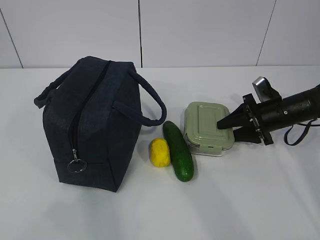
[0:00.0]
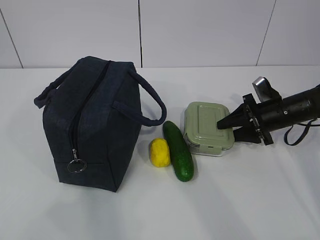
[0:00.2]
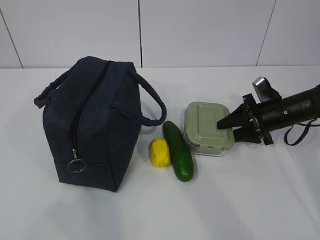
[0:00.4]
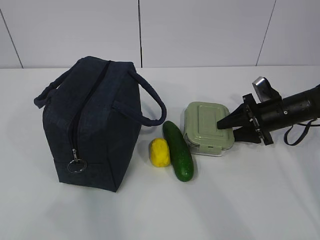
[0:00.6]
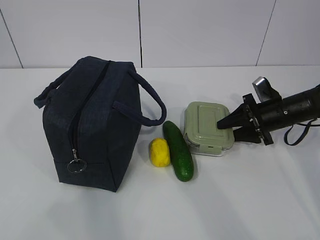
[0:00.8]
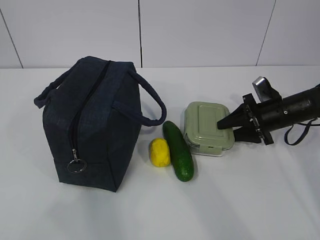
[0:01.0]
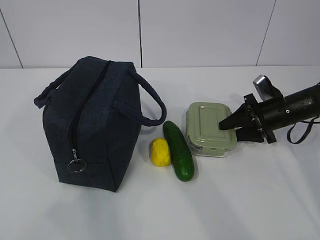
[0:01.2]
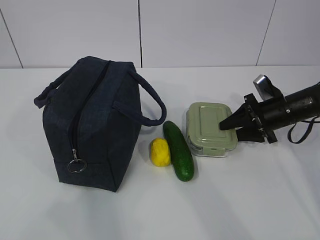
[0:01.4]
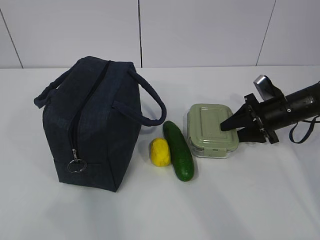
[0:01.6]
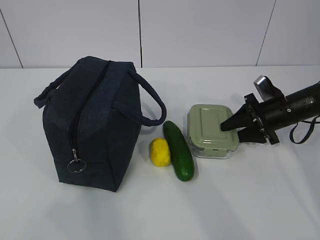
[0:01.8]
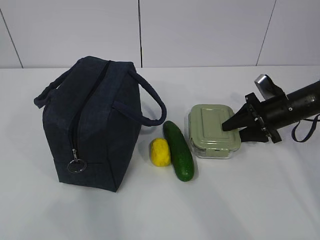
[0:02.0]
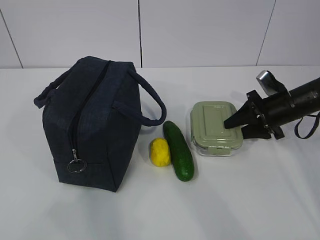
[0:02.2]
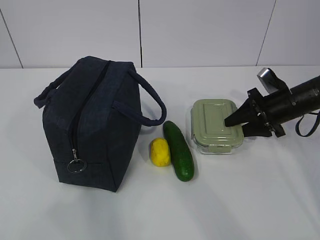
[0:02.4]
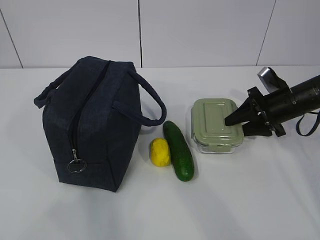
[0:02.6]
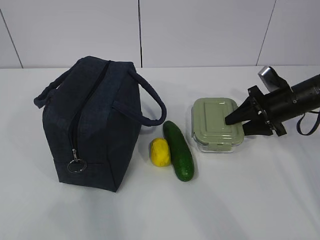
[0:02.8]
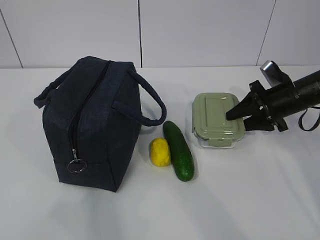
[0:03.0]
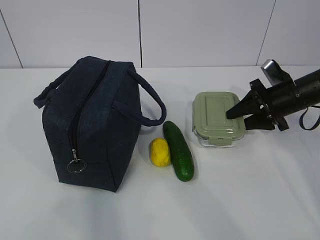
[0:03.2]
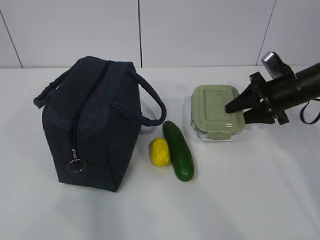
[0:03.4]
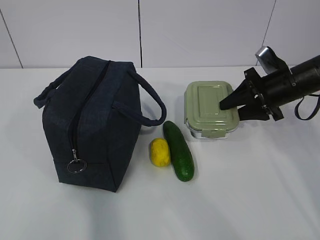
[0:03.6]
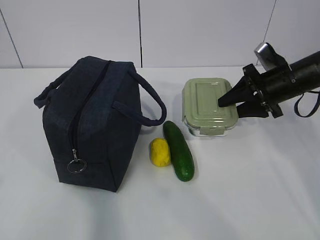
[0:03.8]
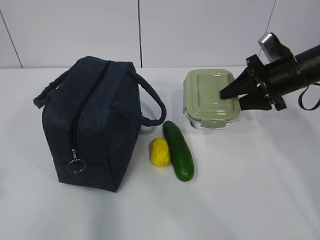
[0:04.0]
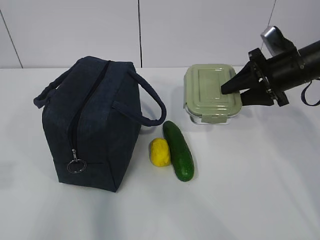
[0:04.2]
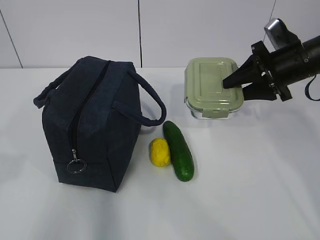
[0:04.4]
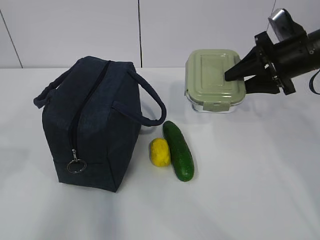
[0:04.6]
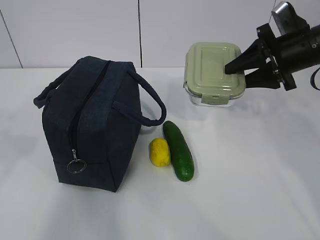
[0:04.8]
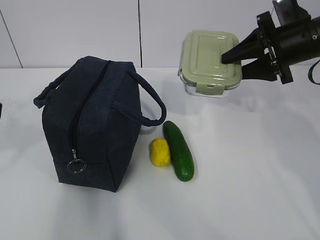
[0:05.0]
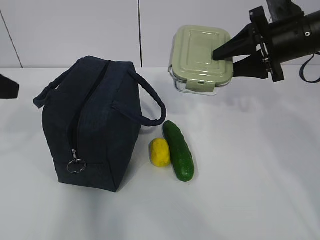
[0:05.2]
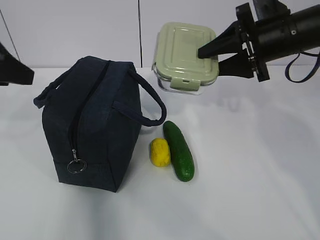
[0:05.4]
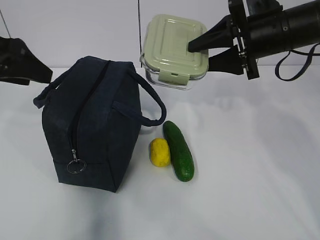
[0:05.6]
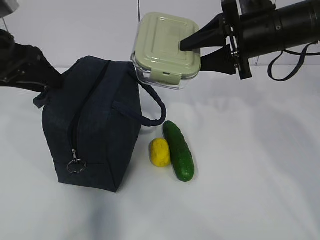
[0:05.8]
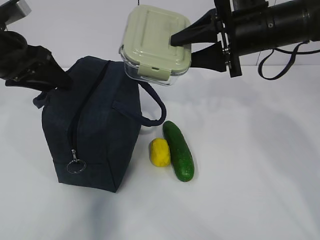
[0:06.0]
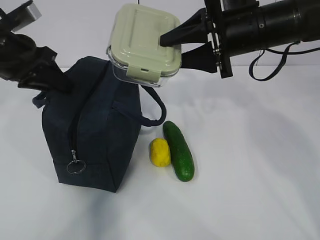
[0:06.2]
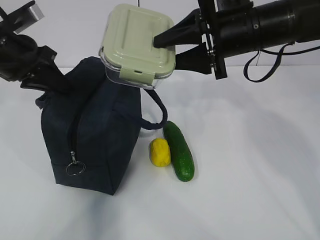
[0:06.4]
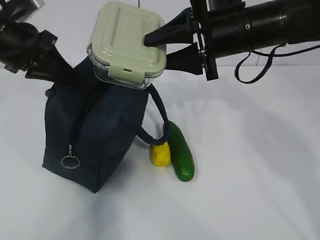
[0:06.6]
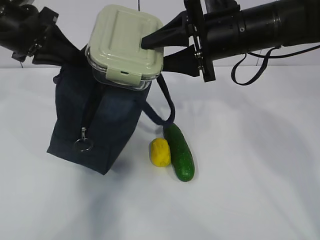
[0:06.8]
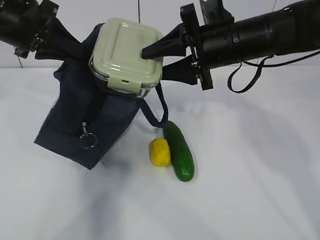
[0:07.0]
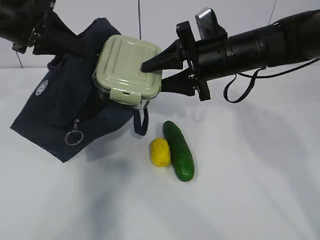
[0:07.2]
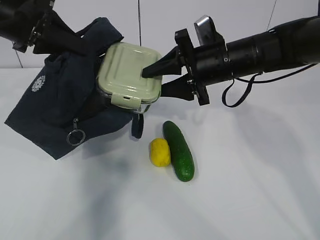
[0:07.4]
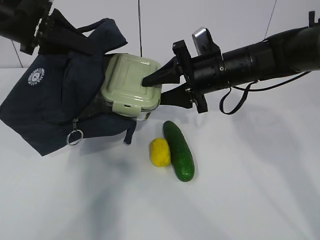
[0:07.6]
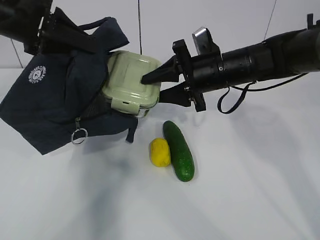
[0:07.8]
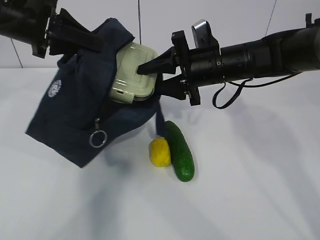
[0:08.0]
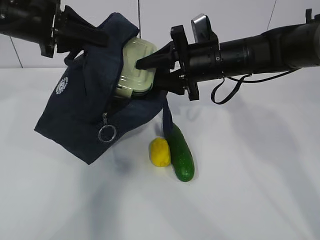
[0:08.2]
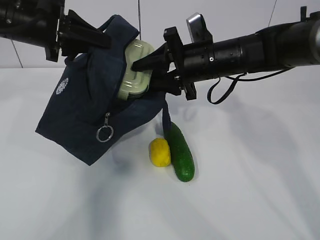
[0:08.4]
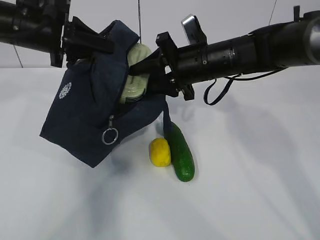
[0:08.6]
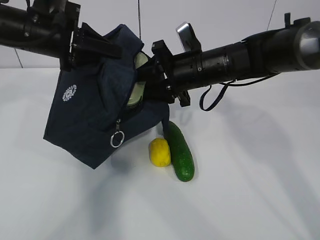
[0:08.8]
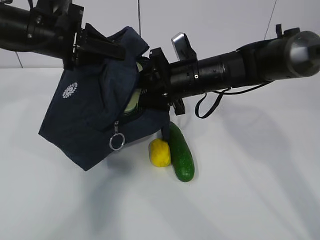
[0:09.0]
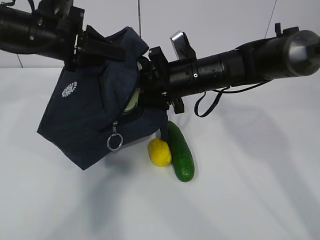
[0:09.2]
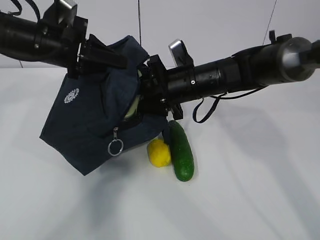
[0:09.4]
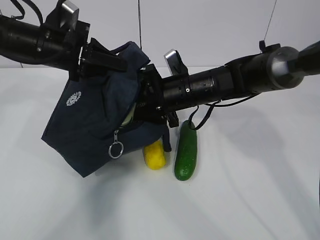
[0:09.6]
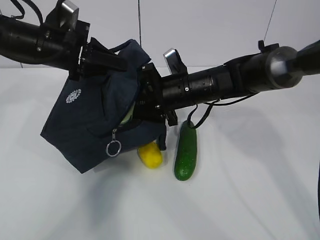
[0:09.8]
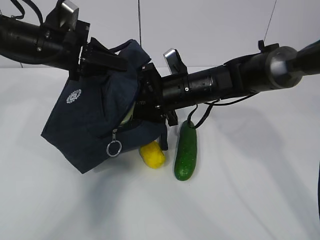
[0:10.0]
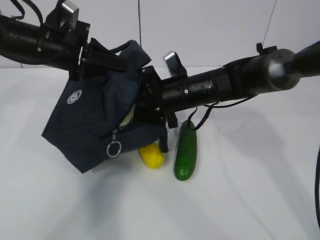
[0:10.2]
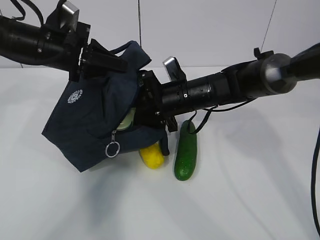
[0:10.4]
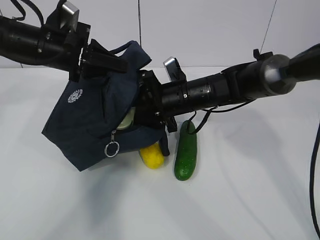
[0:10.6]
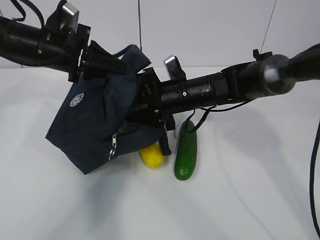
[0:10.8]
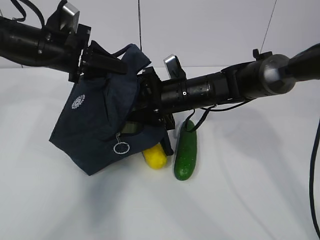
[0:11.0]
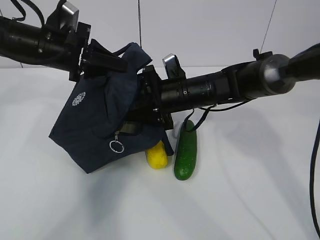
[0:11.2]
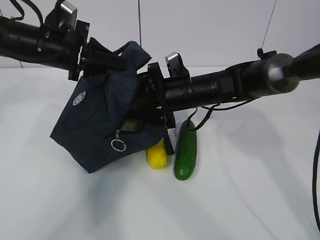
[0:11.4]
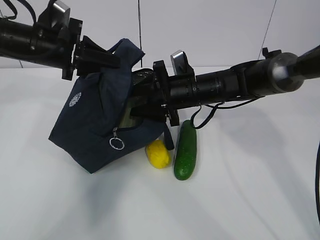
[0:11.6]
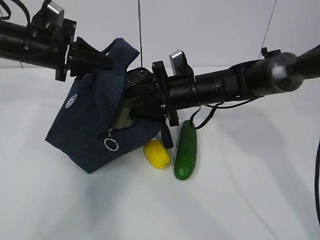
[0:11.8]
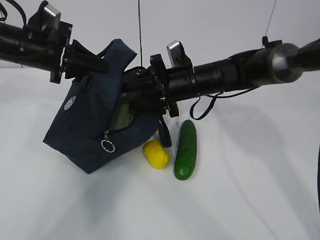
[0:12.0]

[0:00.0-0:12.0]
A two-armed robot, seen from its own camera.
Step, 0:01.8 to 0:05.0: Place it into the bag with your right hand.
Step, 0:05.2 to 0:09.0: Grab the cucumber with your right hand.
Step, 0:09.2 to 0:11.4: Place it into the bag with your right hand.
0:00.0 to 0:01.6: Both grippers stay put.
0:01.6 to 0:03.0: The grippers stay close to where they were, moving slightly.
0:03.0 to 0:04.4: The right gripper moves upward, approximately 10 cm, while the left gripper goes about 10 cm forward.
0:04.4 to 0:06.0: The left gripper heads forward, covering about 25 cm, while the right gripper travels to the left and upward by some 10 cm.
0:06.0 to 0:07.6: The right gripper heads downward, covering some 5 cm; the left gripper changes place by about 5 cm, and closes its fingers.
0:07.6 to 0:09.0: The left gripper moves approximately 5 cm.
0:10.4 to 0:12.0: The grippers make only small movements.

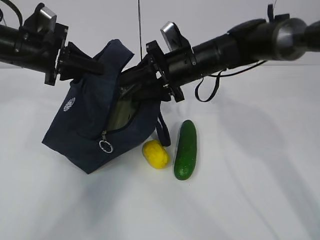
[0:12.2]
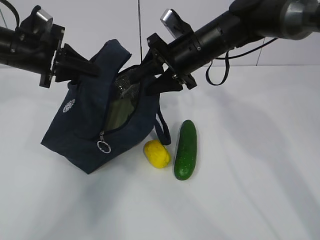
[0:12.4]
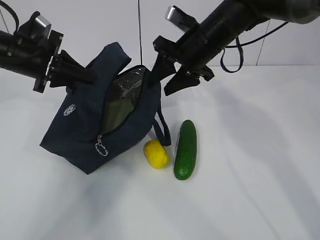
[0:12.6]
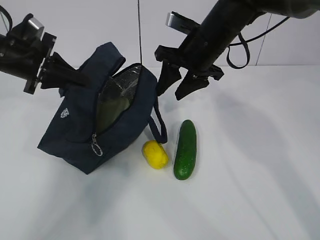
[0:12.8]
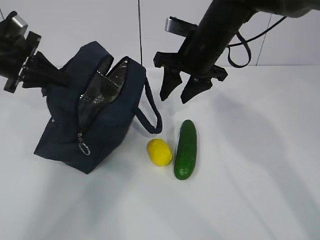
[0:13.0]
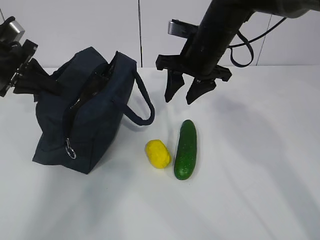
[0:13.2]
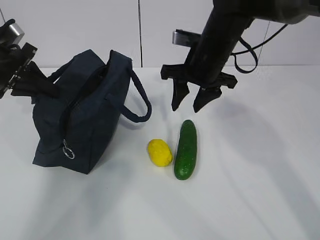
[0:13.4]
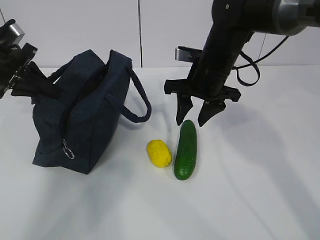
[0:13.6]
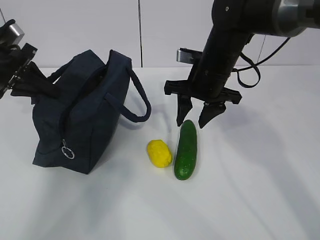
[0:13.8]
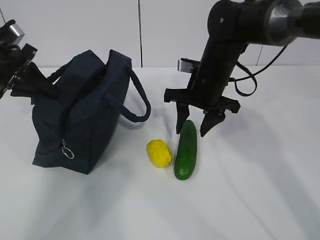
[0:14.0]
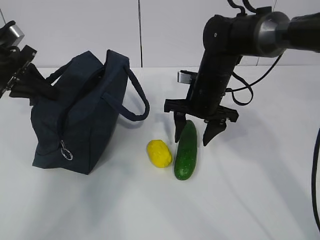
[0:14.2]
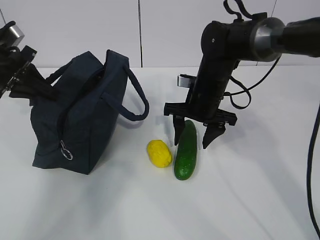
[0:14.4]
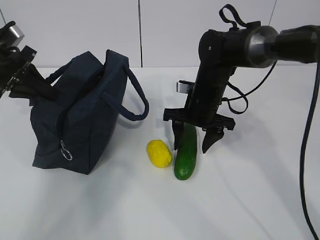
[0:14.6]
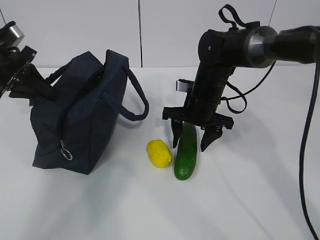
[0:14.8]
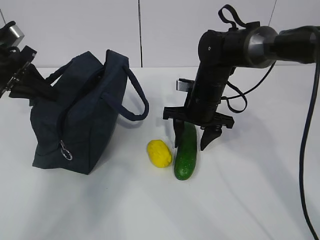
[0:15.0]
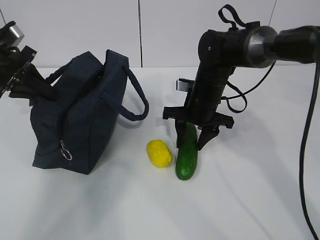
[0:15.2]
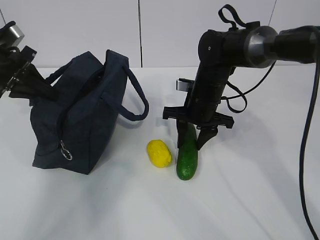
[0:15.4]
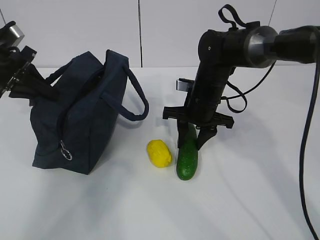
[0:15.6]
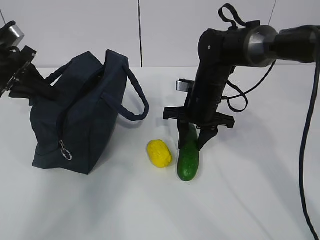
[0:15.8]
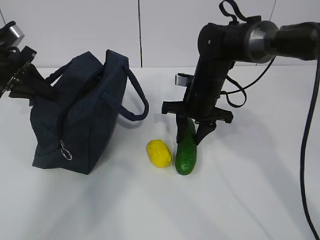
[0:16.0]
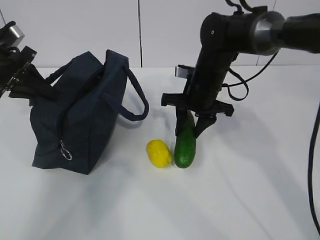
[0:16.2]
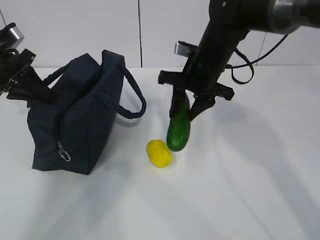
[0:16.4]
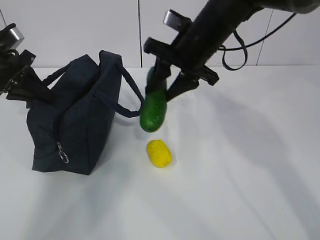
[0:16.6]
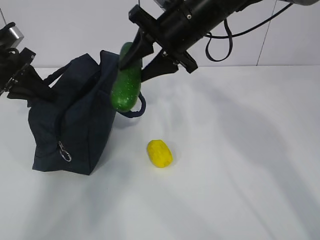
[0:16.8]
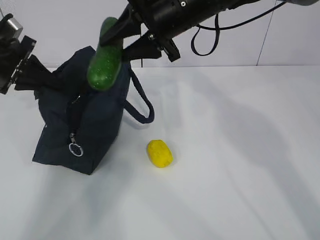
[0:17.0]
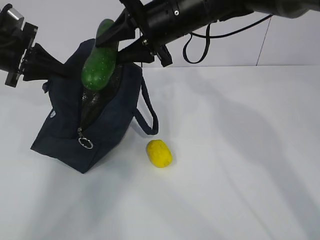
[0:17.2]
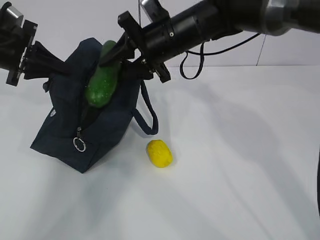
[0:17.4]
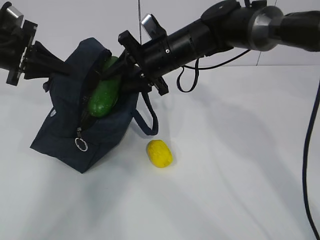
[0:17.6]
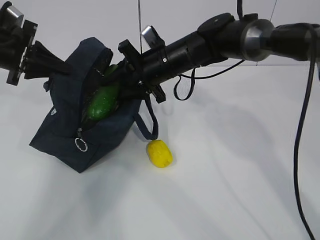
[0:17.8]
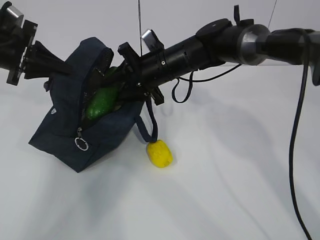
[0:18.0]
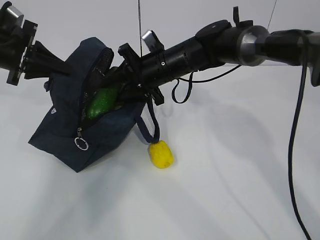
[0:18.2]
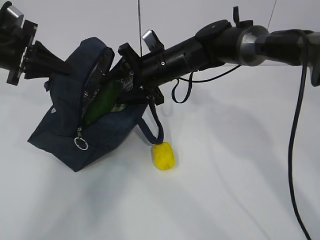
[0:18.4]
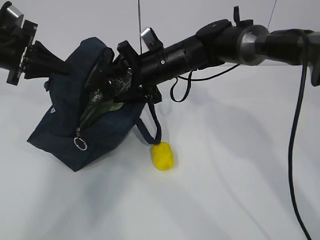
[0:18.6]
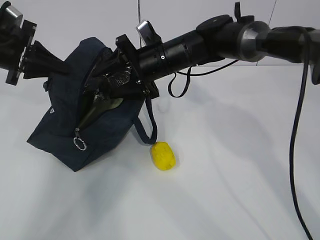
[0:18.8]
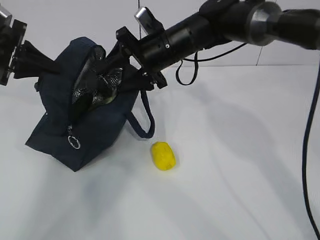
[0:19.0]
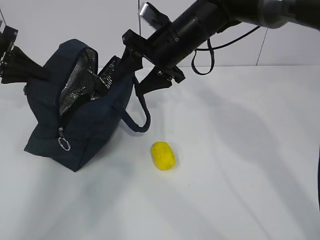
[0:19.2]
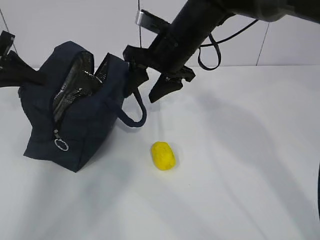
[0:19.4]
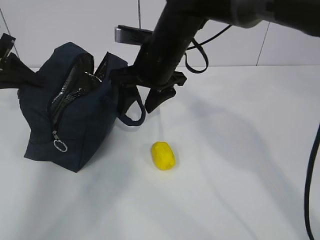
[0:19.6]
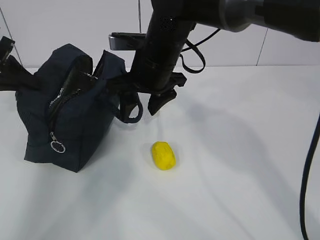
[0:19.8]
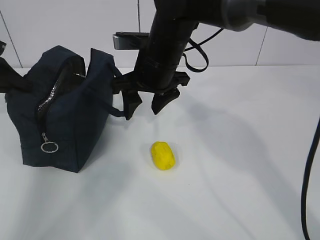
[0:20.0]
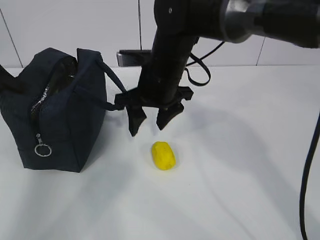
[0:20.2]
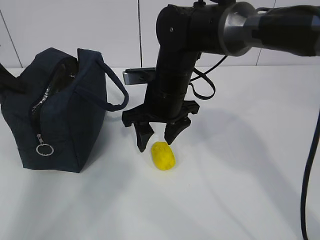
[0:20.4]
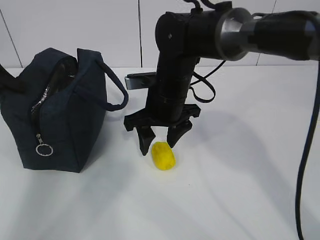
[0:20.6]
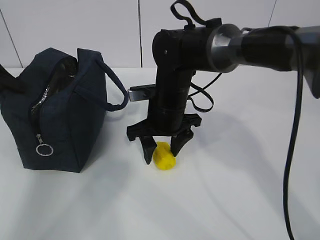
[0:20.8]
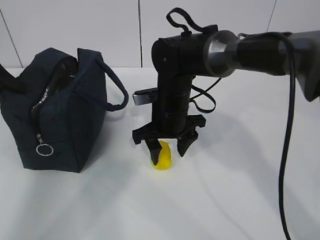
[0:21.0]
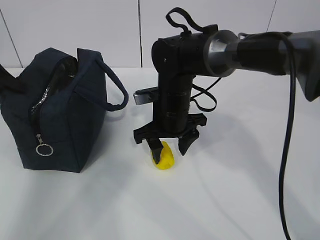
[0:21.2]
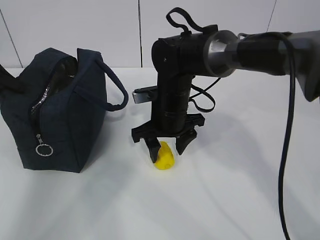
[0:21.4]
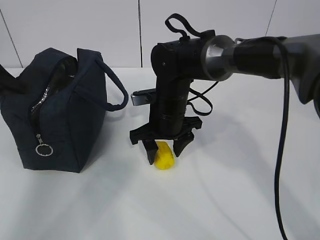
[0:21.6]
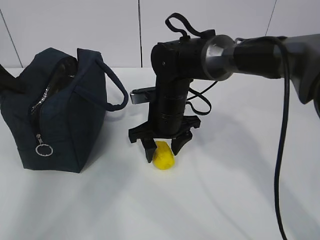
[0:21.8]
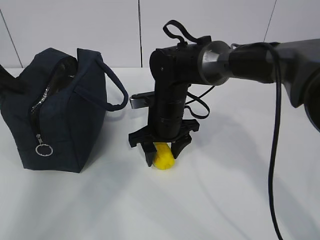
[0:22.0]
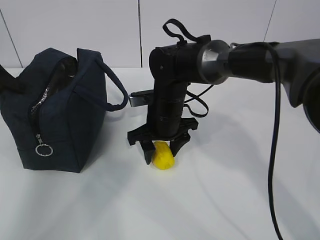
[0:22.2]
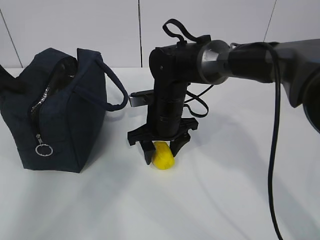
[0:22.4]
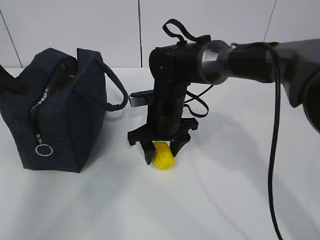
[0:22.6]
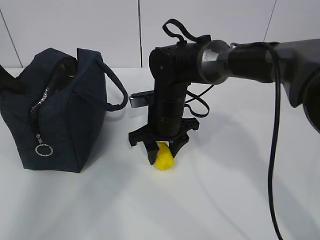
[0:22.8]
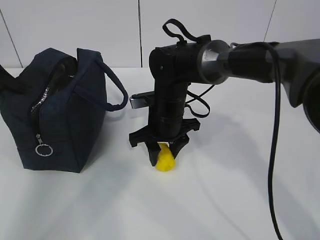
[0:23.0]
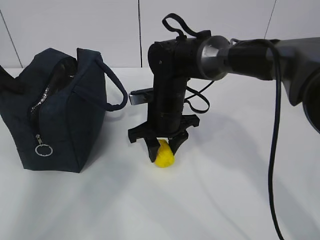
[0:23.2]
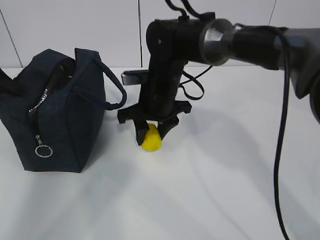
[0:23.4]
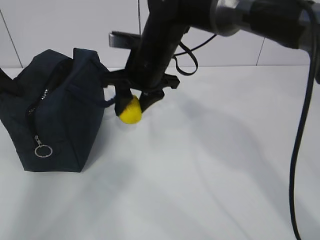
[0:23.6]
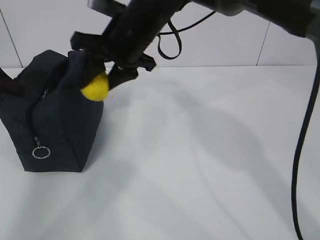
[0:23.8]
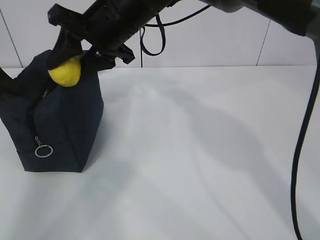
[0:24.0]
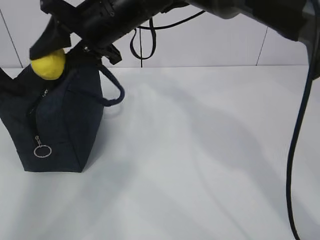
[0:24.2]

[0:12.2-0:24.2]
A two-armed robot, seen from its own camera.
Step, 0:12.2 to 0:15.0: Grab the lemon with your right hand.
Step, 0:18.0 to 0:20.0: Grab the lunch bag with your right hand.
Step, 0:20.2 to 0:22.0: Move the lunch bag to the right.
0:12.2 to 0:13.8: The left gripper travels to the left by about 5 cm.
0:13.8 to 0:15.2: The right gripper heads downward, covering roughly 5 cm.
0:15.2 to 0:16.6: The right gripper shifts some 10 cm upward.
0:16.6 to 0:18.2: The right gripper travels downward by some 5 cm.
0:18.2 to 0:19.8: The right gripper is displaced backward and upward by some 10 cm.
0:19.8 to 0:21.2: The right gripper is displaced downward by approximately 10 cm.
0:21.2 to 0:22.6: There are only small adjustments of the grippers.
0:22.6 to 0:24.2: The right gripper moves upward, some 15 cm.
